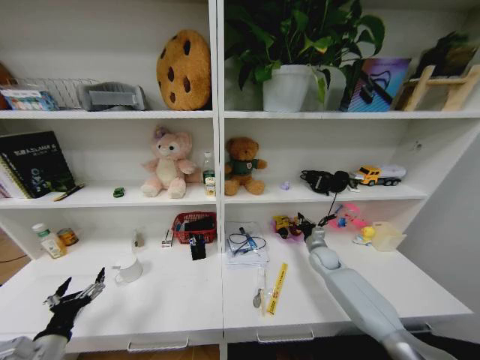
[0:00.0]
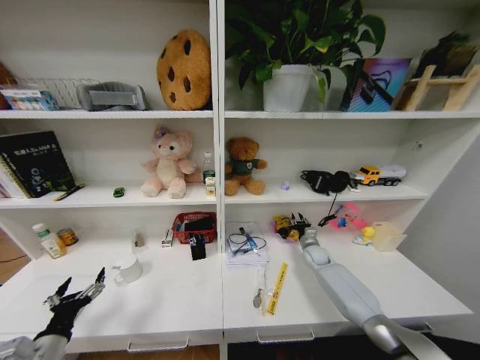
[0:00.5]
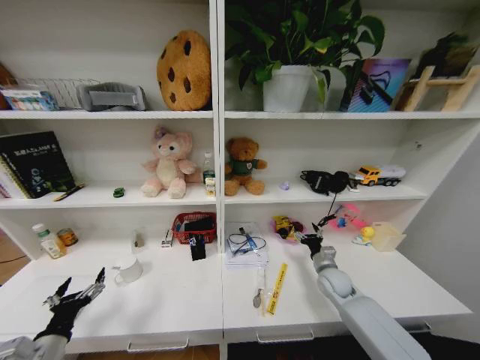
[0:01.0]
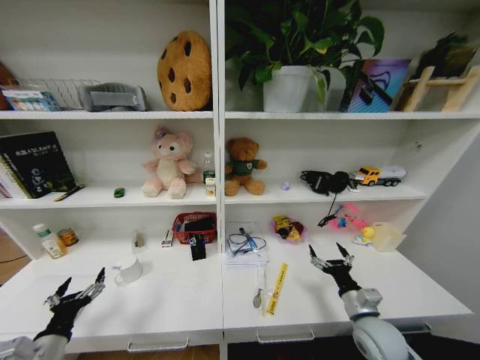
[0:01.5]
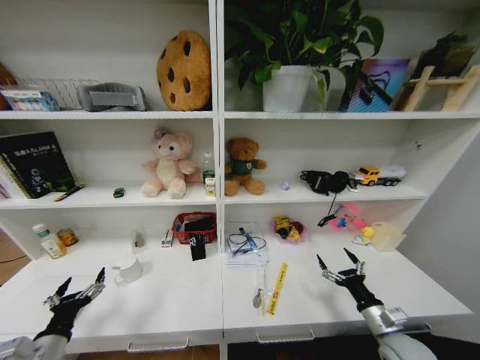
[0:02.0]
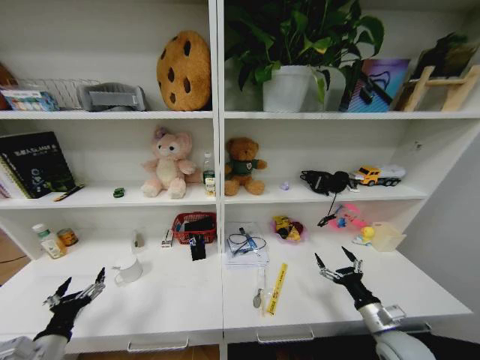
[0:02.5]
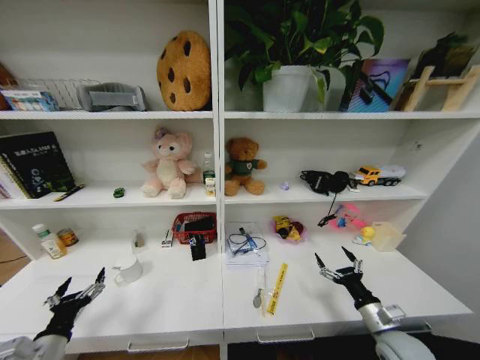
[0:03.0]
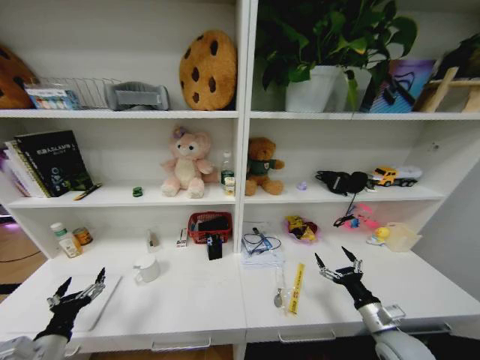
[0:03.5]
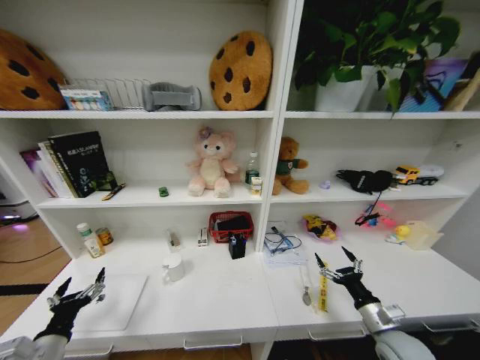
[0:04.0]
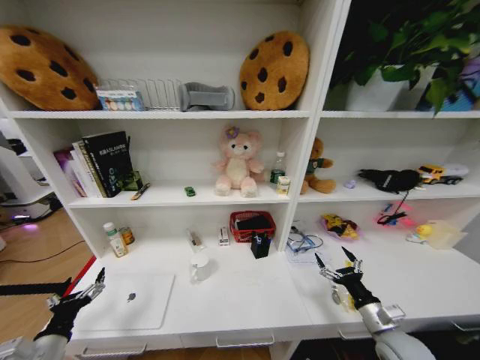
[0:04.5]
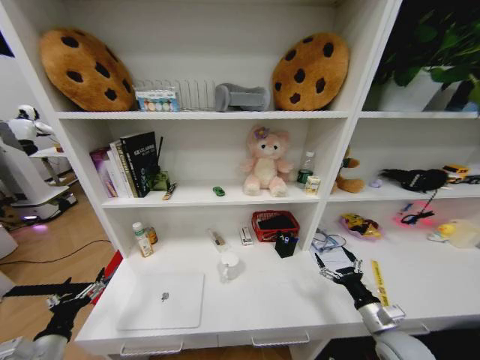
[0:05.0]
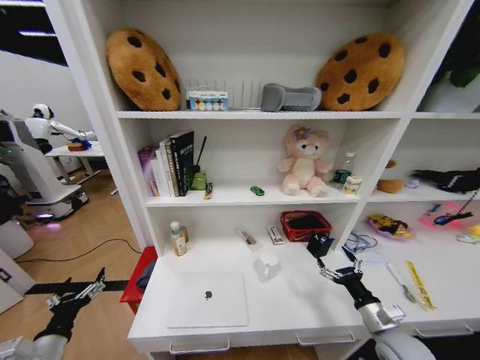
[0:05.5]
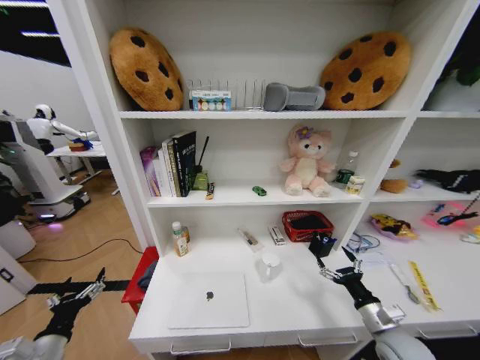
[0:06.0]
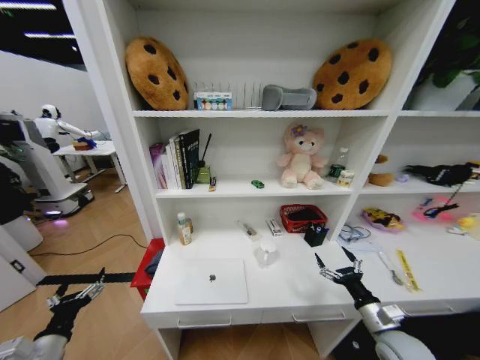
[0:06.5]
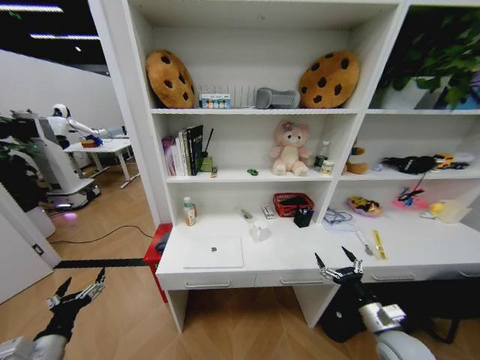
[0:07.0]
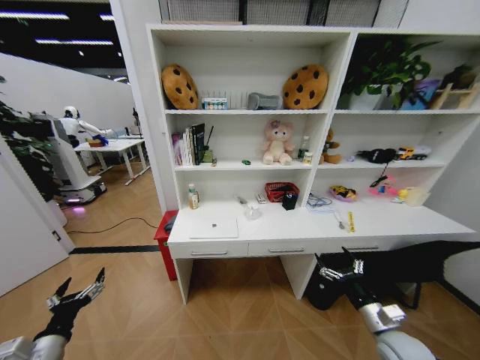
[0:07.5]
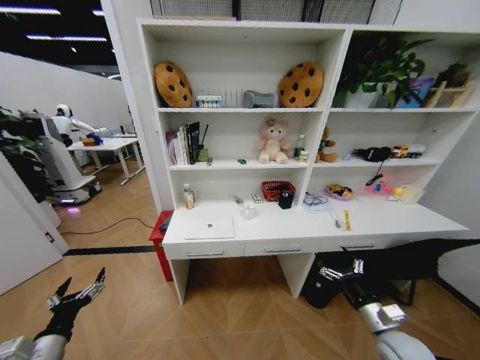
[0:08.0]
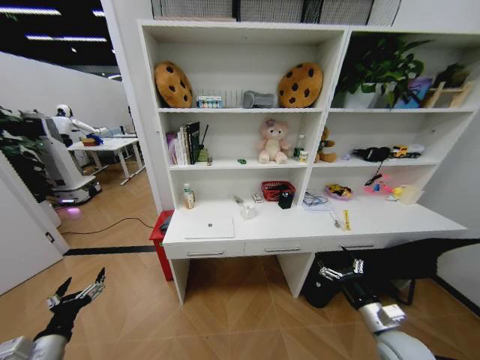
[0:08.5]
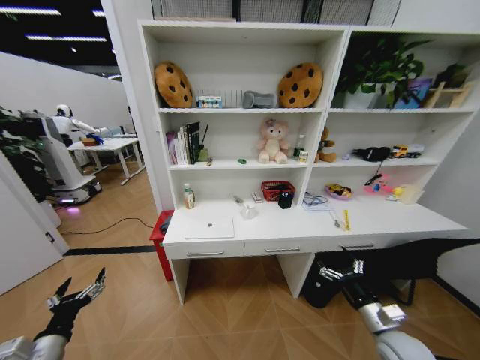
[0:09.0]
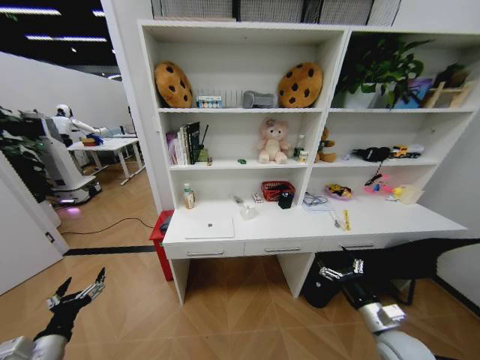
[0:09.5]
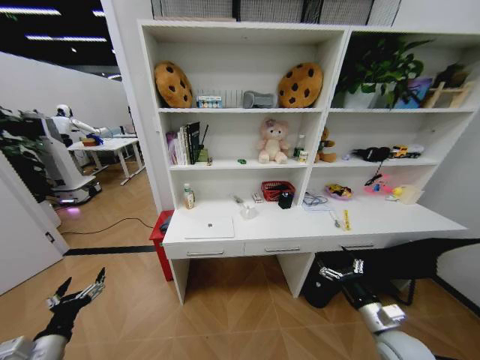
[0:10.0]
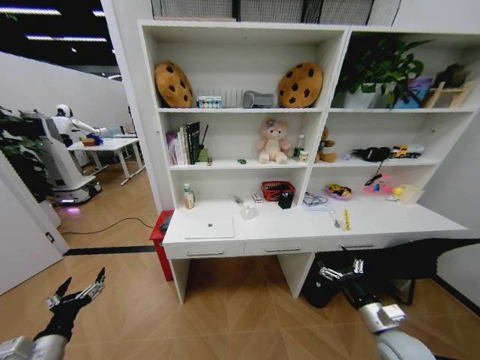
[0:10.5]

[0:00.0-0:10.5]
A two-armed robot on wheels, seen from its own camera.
Task of the whole recording: Organize the objects on the table.
0:00.0 to 0:02.0: The right gripper shifts approximately 25 cm backward, and opens its fingers.
0:08.5 to 0:10.5: The two grippers keep their place.
